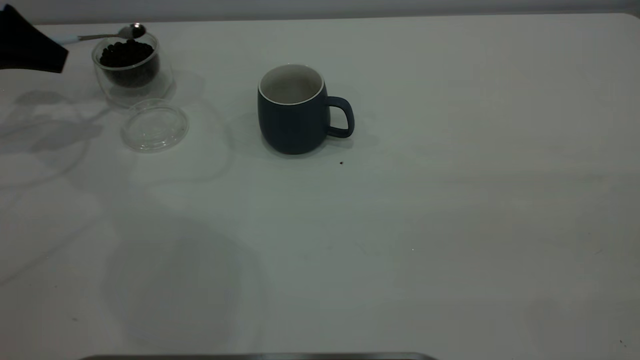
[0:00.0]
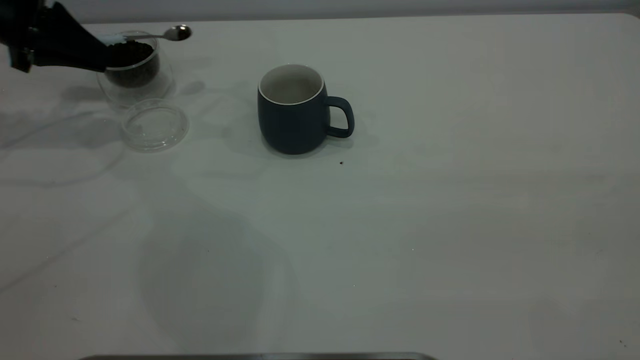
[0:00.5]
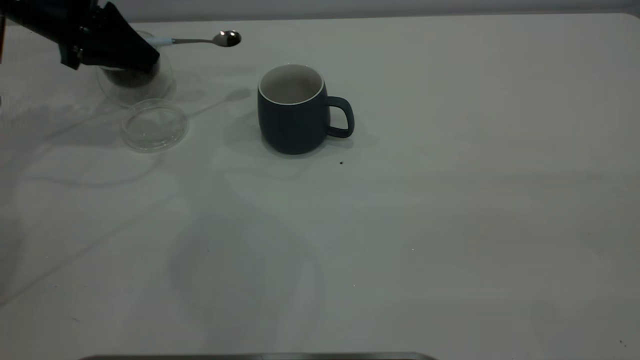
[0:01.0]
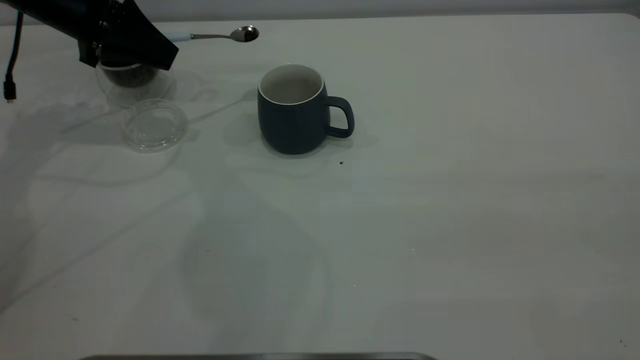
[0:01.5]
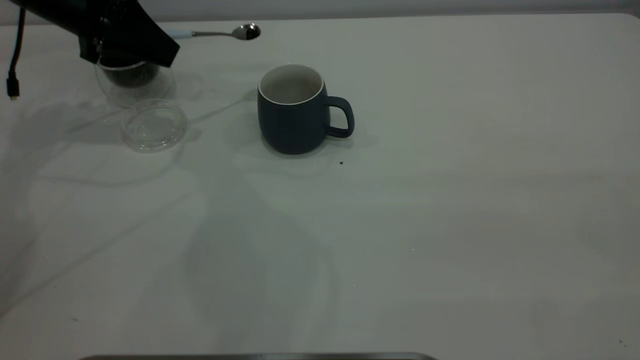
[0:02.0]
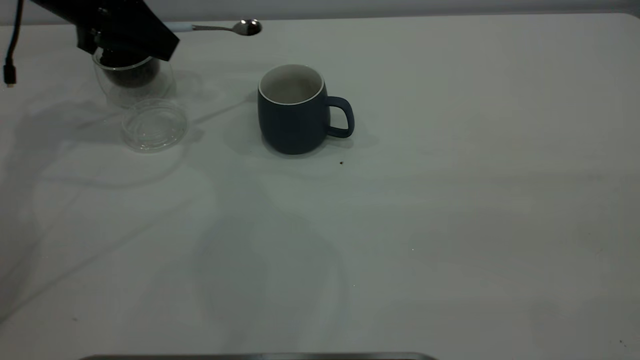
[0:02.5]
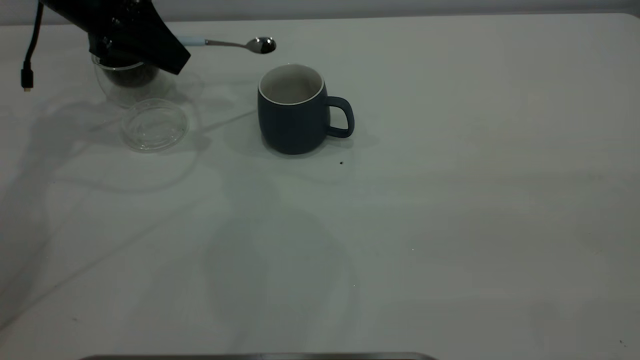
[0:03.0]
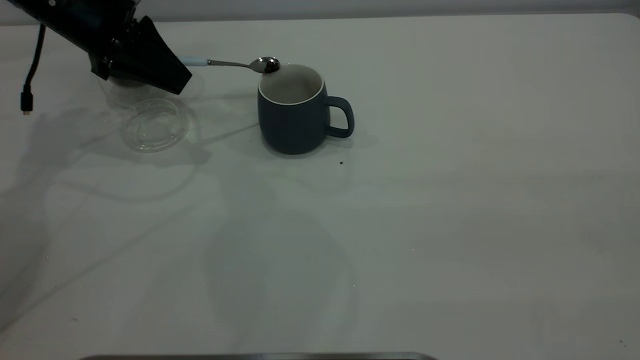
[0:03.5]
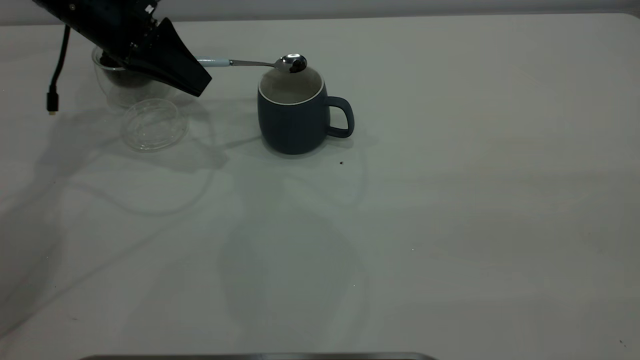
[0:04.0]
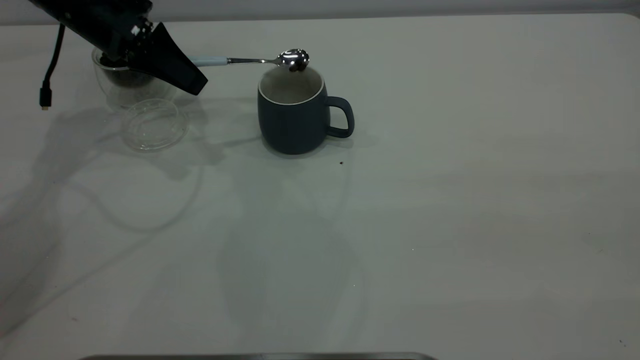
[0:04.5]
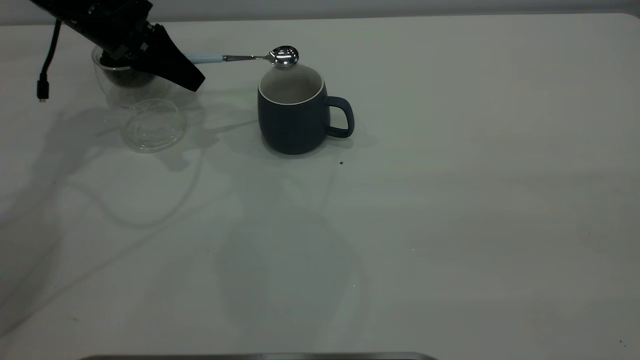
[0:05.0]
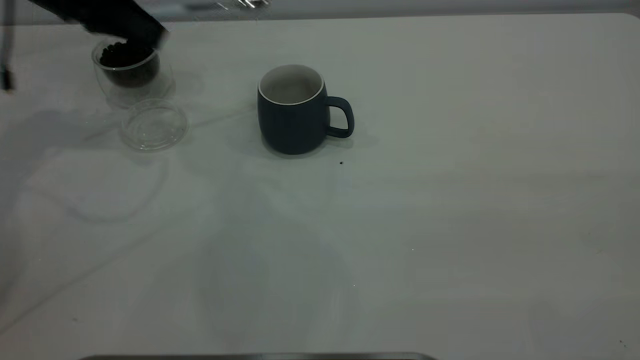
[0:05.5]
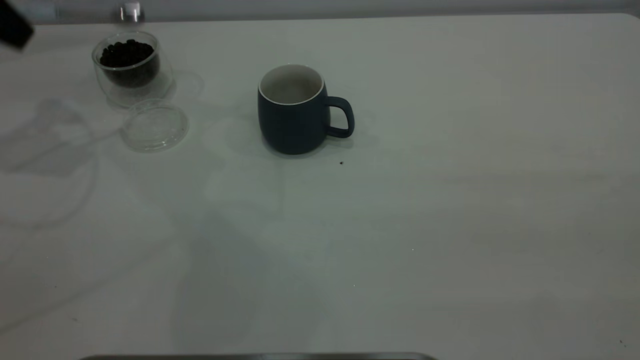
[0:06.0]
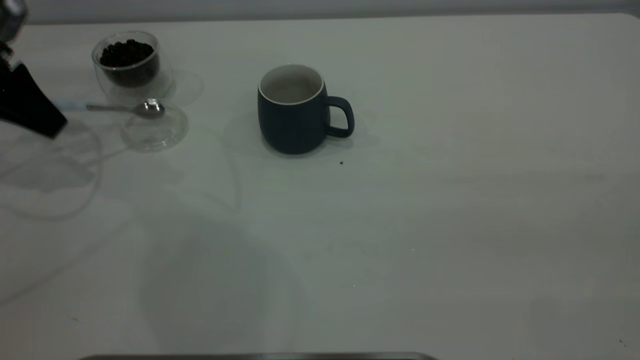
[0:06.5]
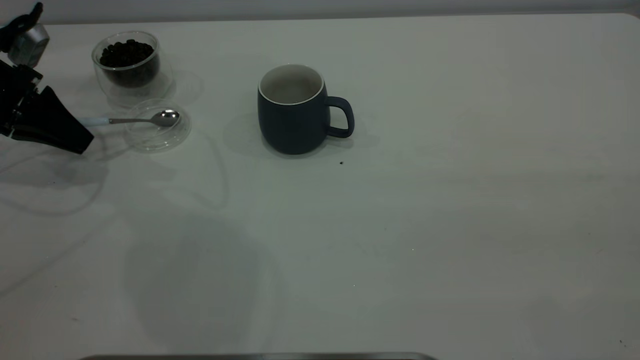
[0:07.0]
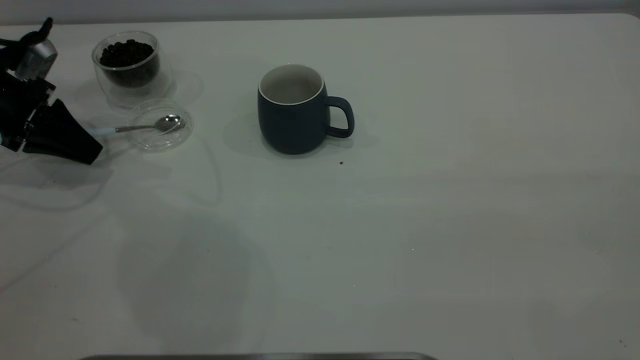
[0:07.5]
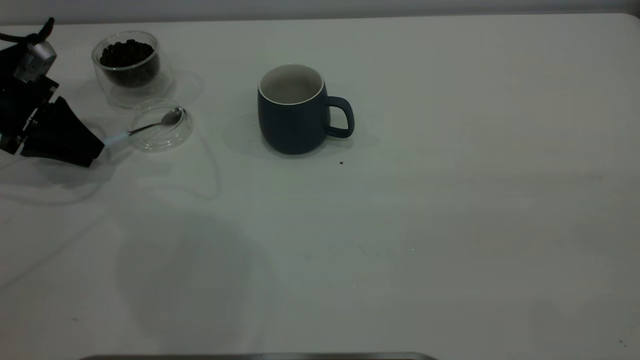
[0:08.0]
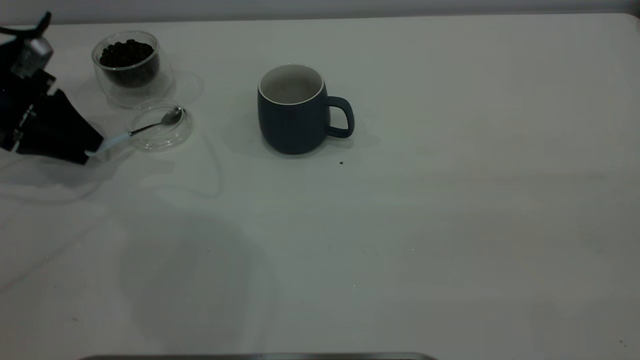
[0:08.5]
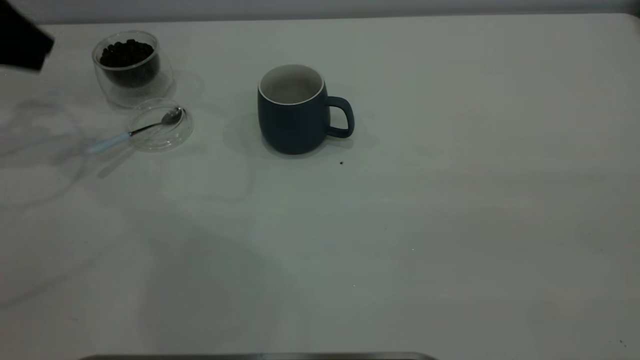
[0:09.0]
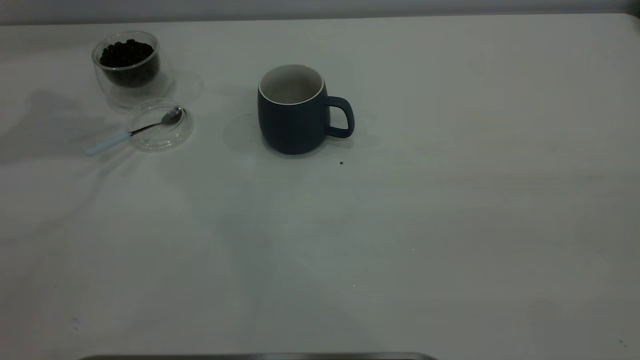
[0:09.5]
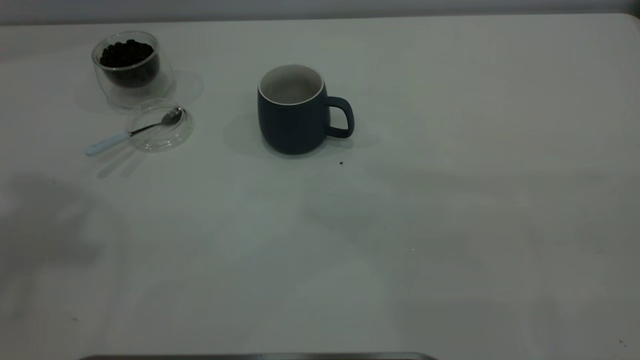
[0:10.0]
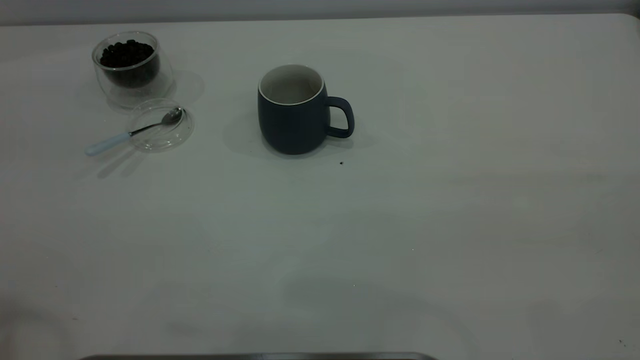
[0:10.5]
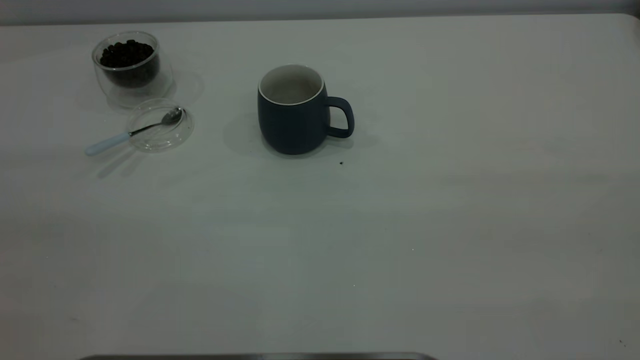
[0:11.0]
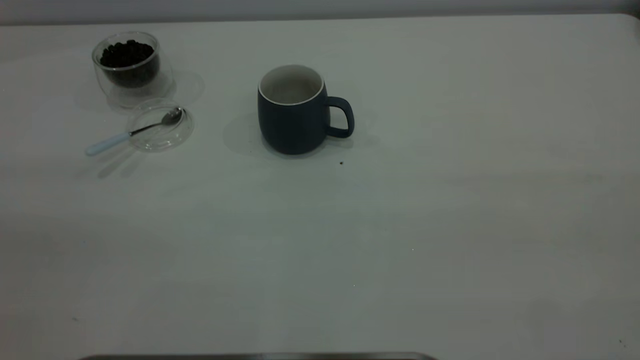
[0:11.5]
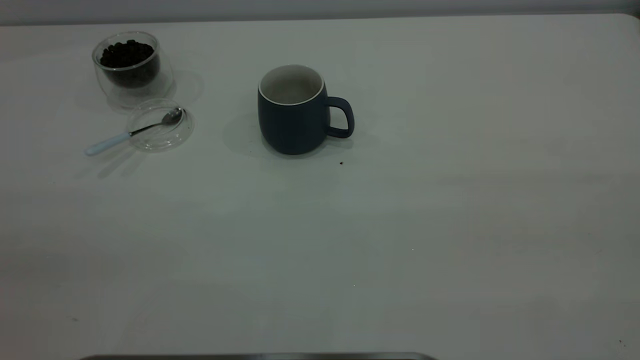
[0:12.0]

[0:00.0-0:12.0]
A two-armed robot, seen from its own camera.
Task of the whole recording: the right gripper place the grey cup in the center of the table, the left gripper take the blue spoon from the cup lid and scoop out the coffee beans from the coffee cup and put them into the grey cup, the left gripper put the spoon back into the cup lid.
Step, 0:00.0 to 0:05.0: Scoop a spoonful of beans into the cup.
Step, 0:05.5 to 0:08.5: Place the spoon back in its original place.
0:00.0 to 0:02.0: The left gripper travels to the right by roughly 15 cm.
0:02.0 to 0:04.0: The left gripper shifts by roughly 5 cm.
0:04.0 to 0:06.0: The left gripper travels to the left and upward by some 15 cm.
0:06.0 to 0:08.0: The left gripper is displaced downward by roughly 15 cm, and opens up.
0:08.0 to 0:10.0: The left gripper heads upward, covering approximately 40 cm.
